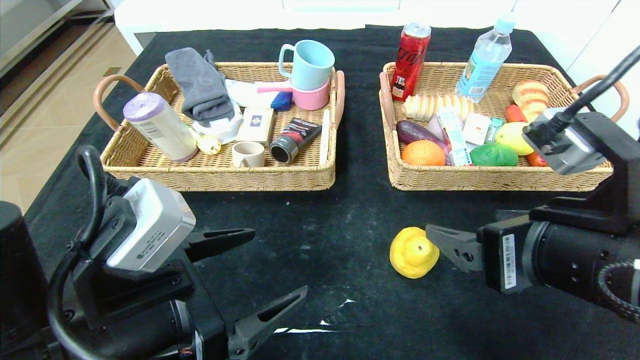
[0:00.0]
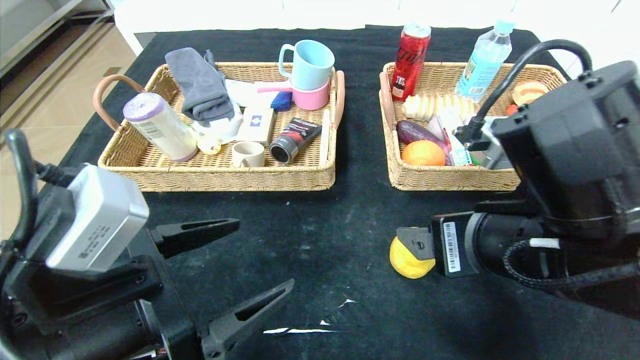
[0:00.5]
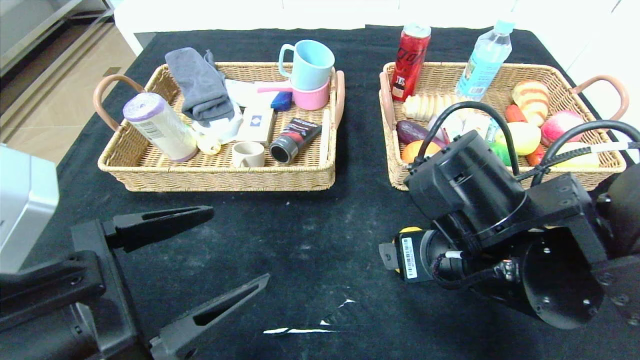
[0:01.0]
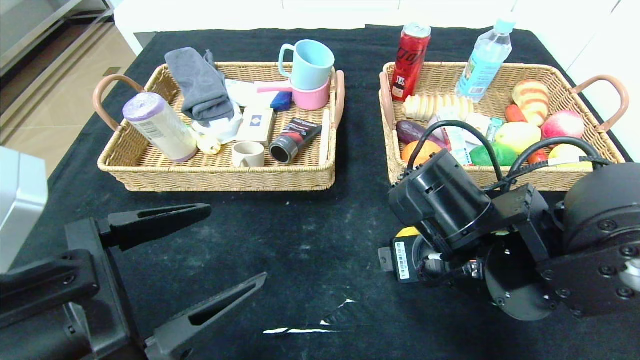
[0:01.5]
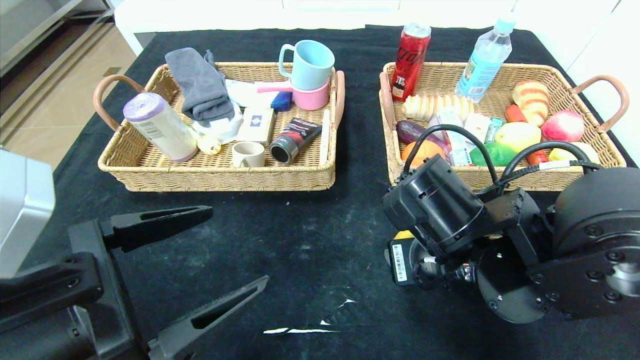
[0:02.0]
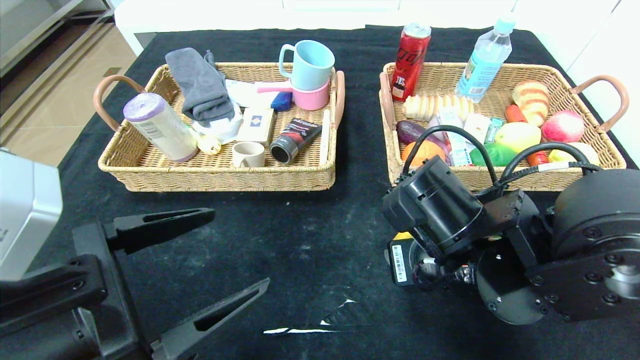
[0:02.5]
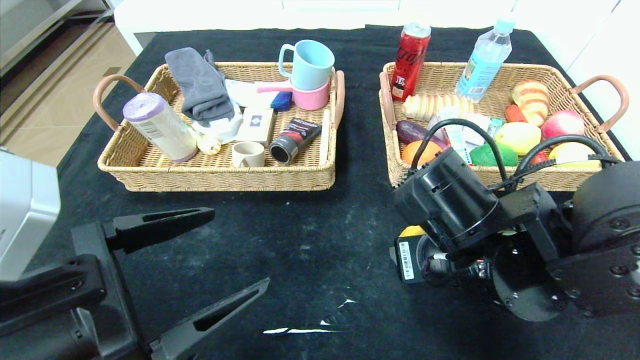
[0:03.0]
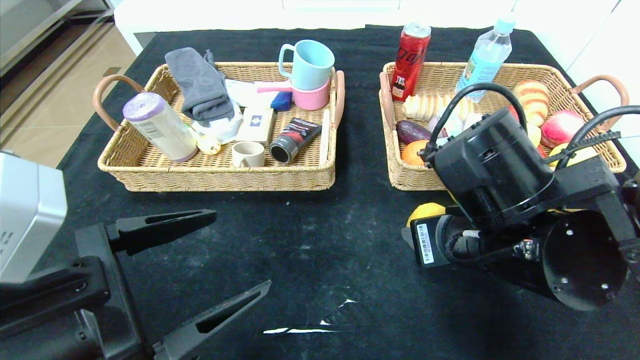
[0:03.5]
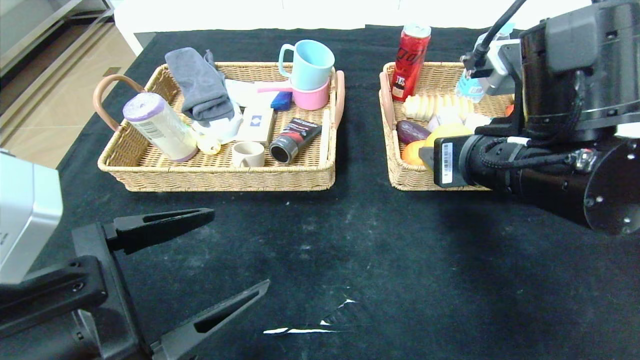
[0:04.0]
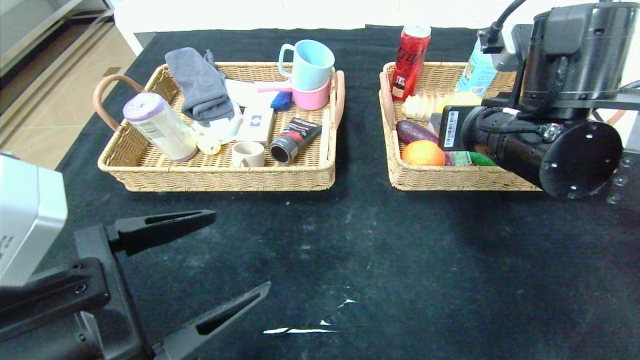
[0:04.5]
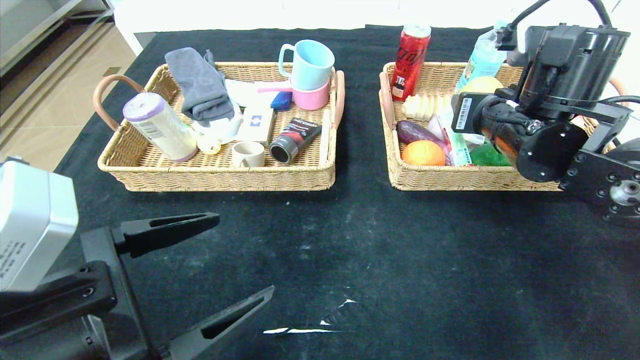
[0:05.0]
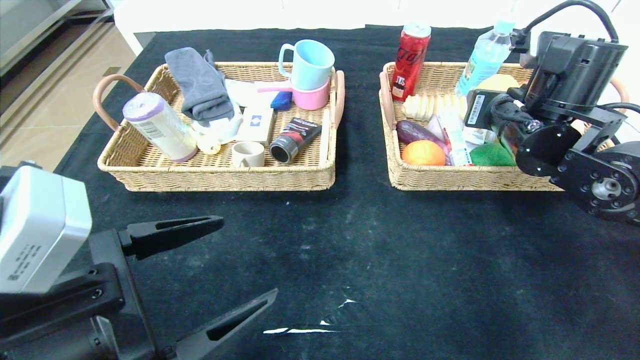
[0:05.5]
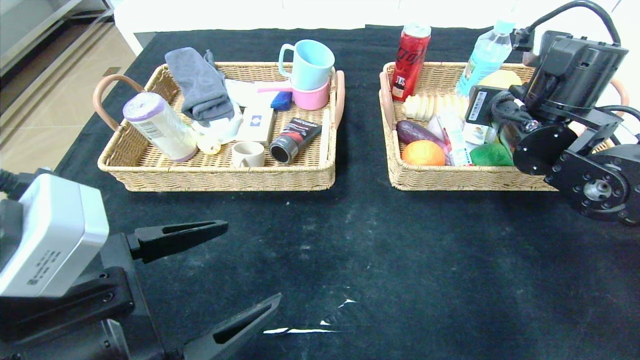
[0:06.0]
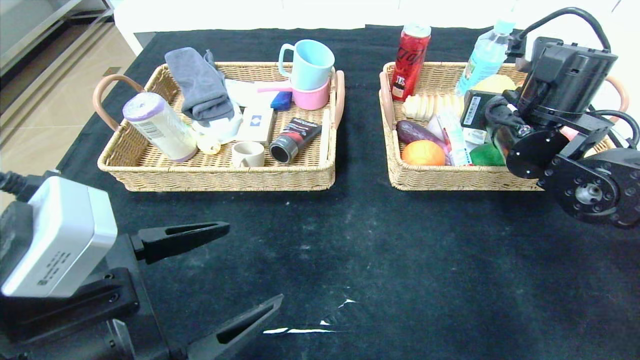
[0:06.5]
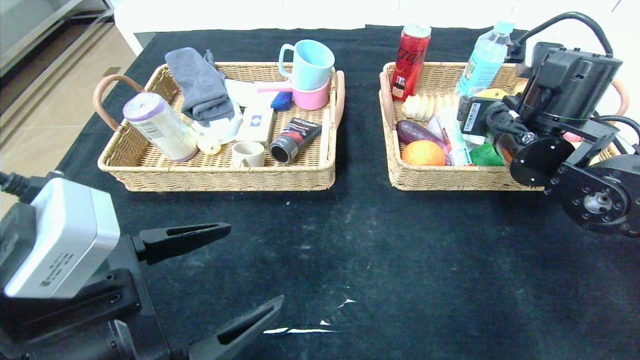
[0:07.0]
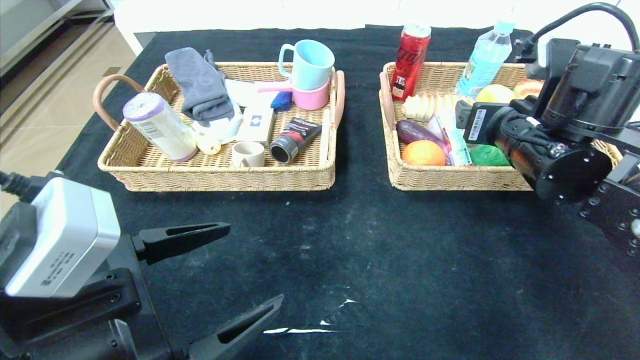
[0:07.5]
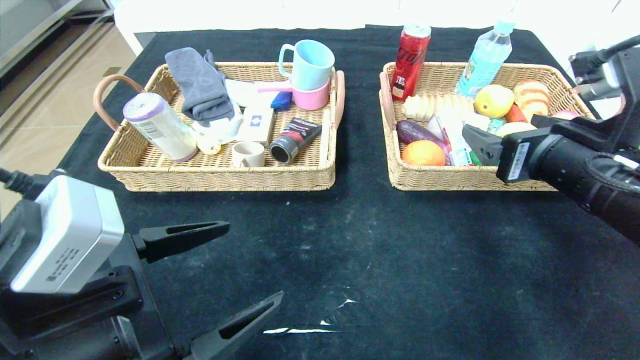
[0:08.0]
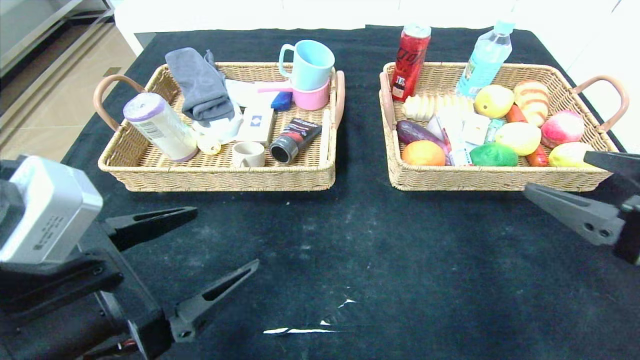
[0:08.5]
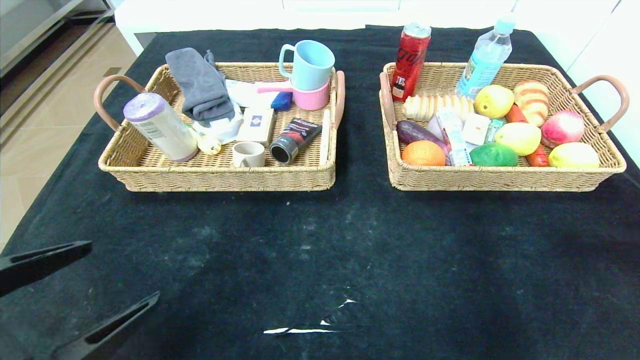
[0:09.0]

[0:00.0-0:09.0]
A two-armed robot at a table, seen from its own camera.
Step, 0:00.0 to 0:06.5: Grasp the pear and put it in the right basket.
0:00.0 to 0:02.0: The right gripper shifts about 10 cm to the left, forward and downward, and closes its fingers.
0:02.0 to 0:04.5: The right gripper travels upward, to the right and forward by about 10 cm.
0:04.5 to 0:07.0: The right gripper is displaced forward by about 5 cm.
0:07.0 to 0:09.0: The left gripper moves to the left, roughly 5 cm; the right gripper shifts some 30 cm backward and to the right.

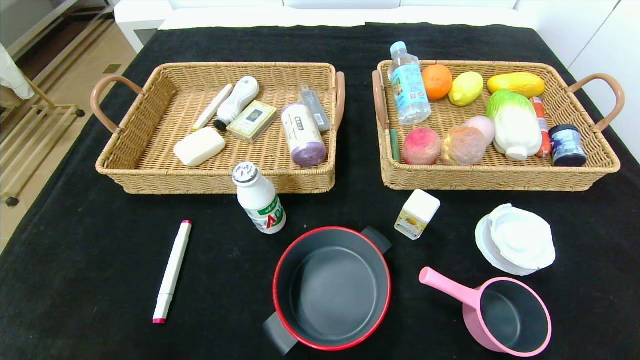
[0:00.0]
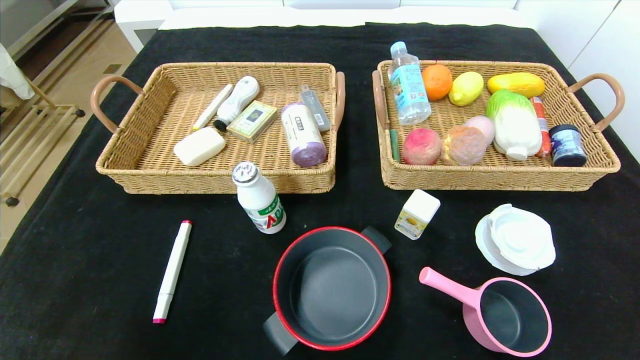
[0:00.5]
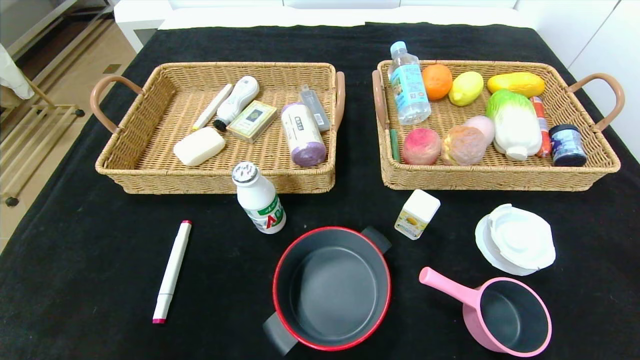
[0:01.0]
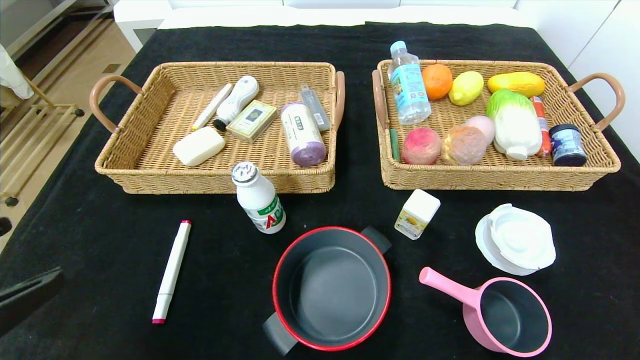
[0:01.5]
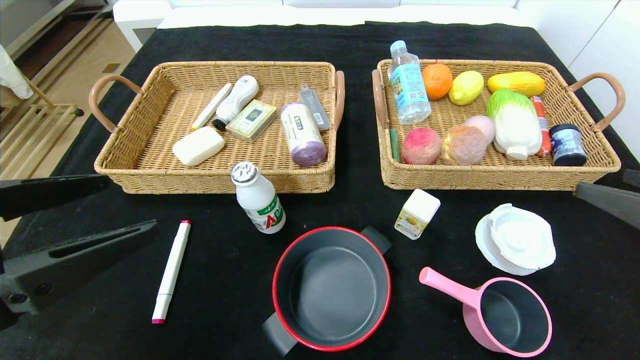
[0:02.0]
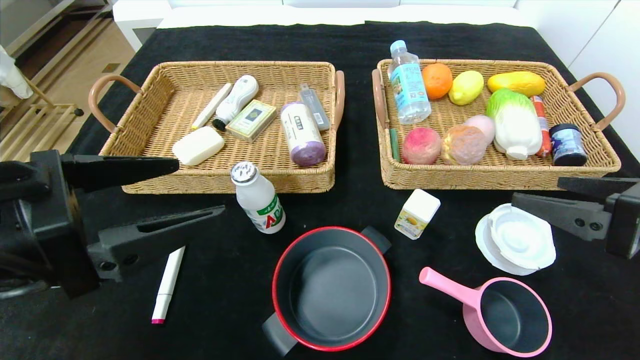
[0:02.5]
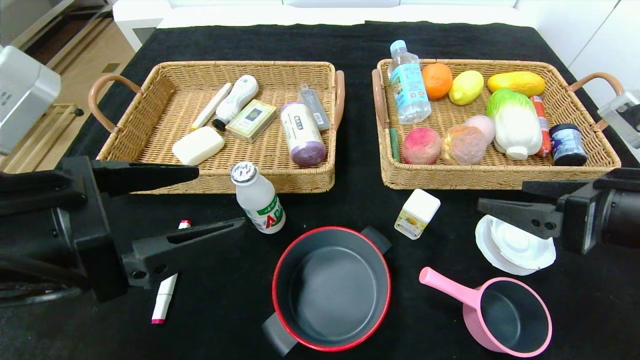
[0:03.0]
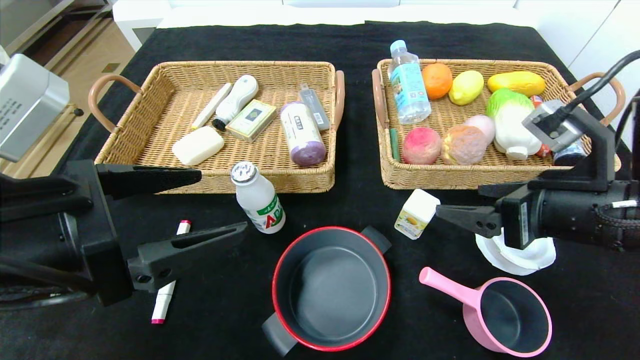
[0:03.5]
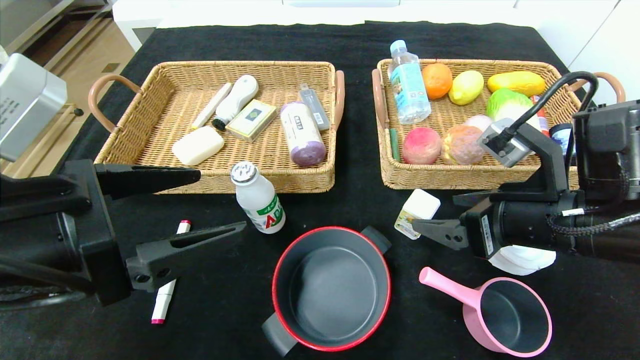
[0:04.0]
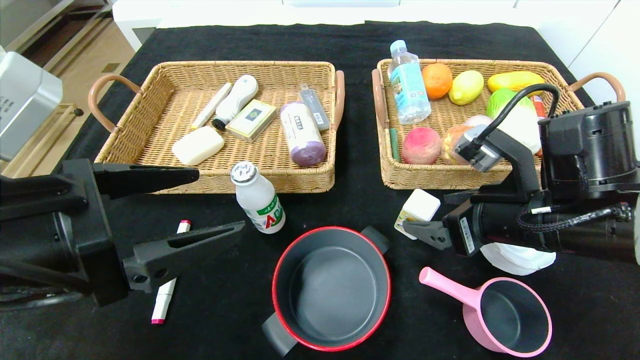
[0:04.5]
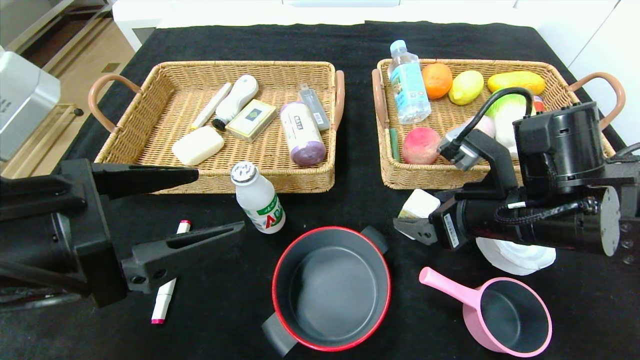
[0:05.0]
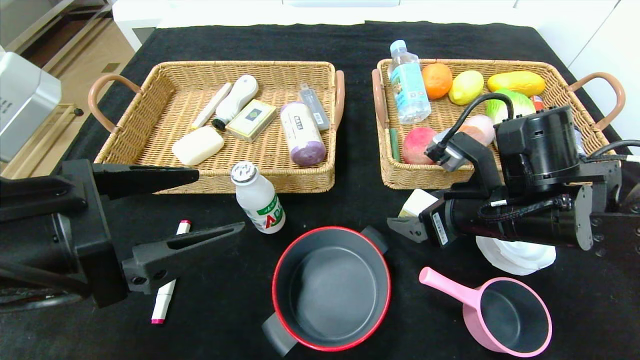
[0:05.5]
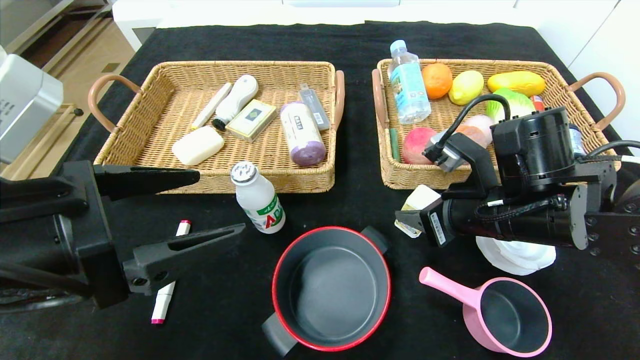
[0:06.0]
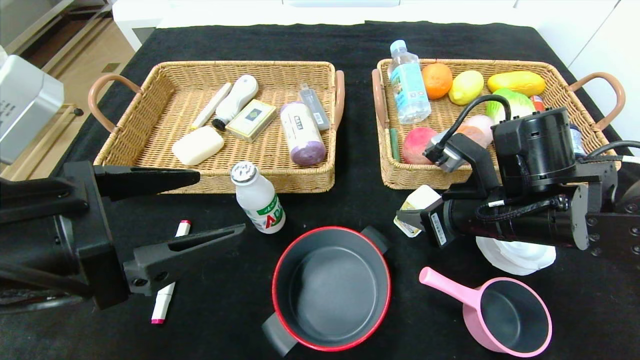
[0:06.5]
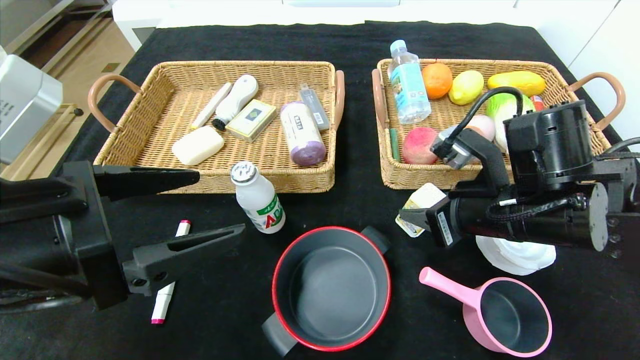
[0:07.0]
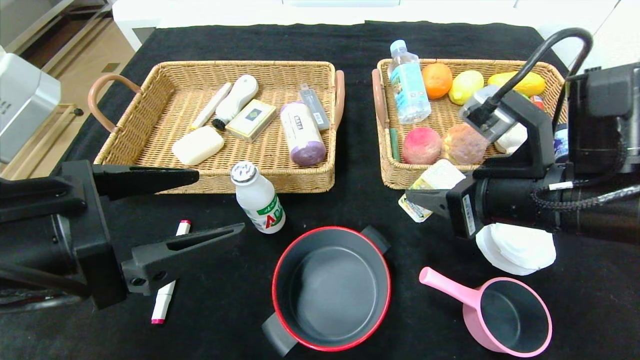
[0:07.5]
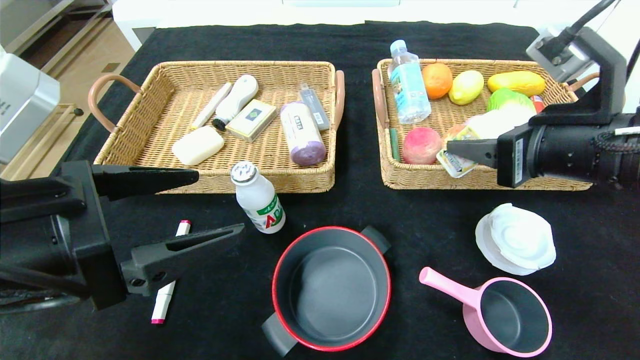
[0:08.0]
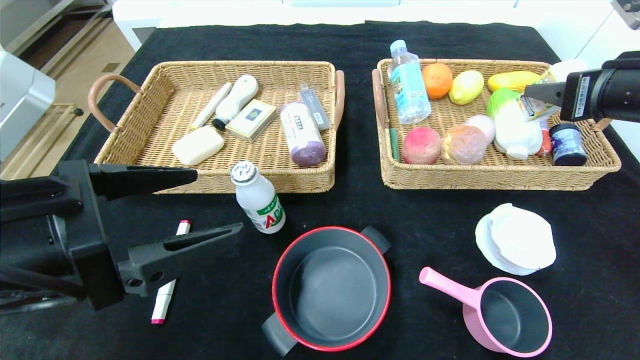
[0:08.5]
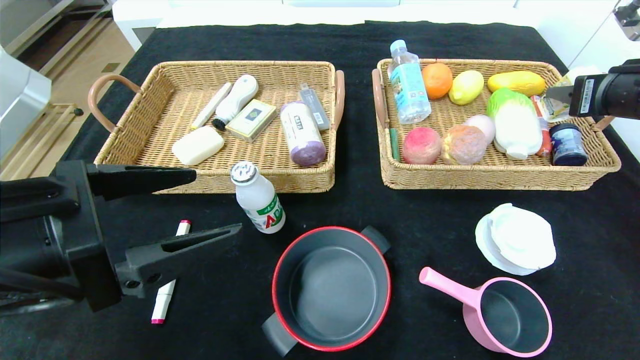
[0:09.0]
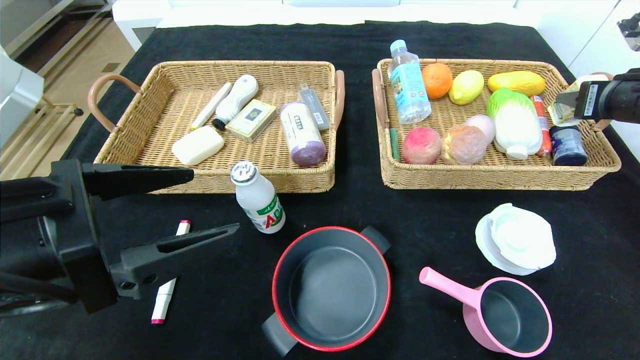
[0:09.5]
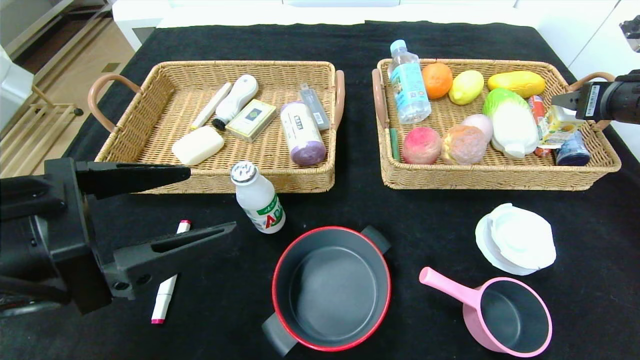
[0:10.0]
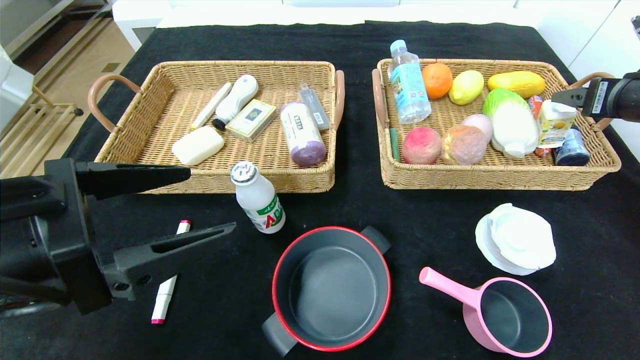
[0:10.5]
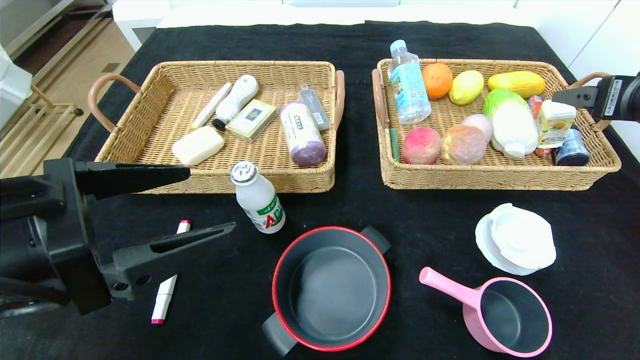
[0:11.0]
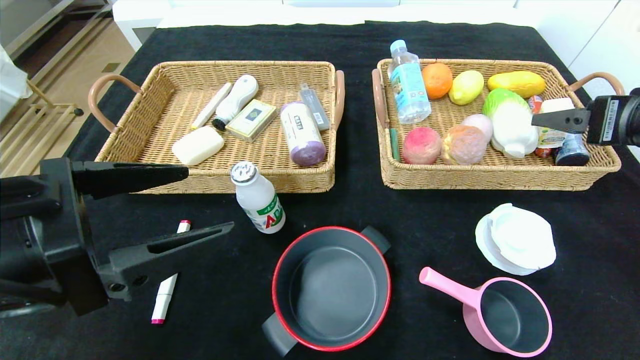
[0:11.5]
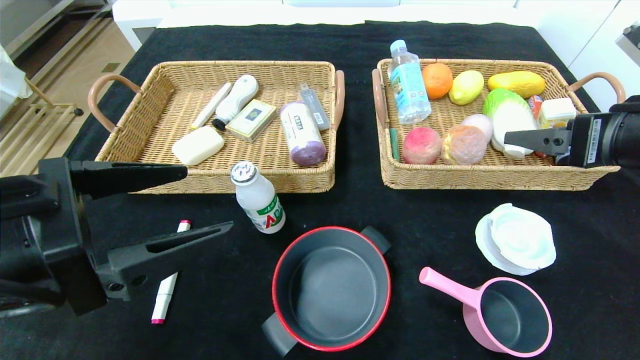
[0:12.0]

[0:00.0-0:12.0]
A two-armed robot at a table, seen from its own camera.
0:00.0 to 0:02.0: Both grippers travel together upward and forward, about 25 cm.
0:02.0 to 0:04.0: The right gripper is displaced to the left and forward by some 15 cm; the left gripper changes place by about 5 cm.
0:04.0 to 0:06.0: The right gripper changes place by roughly 5 cm, and closes.
0:06.0 to 0:08.0: The right gripper heads upward, covering some 10 cm.
0:08.0 to 0:10.0: The right gripper goes roughly 20 cm to the right and forward.
0:10.0 to 0:12.0: The right gripper heads backward and to the left, covering roughly 15 cm.
